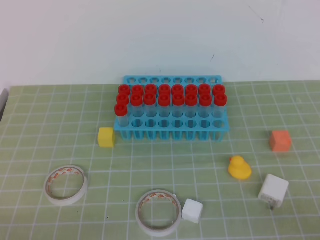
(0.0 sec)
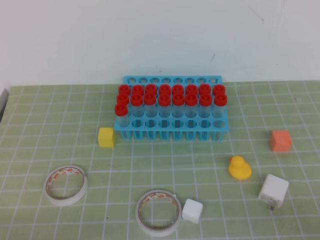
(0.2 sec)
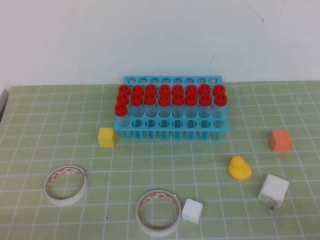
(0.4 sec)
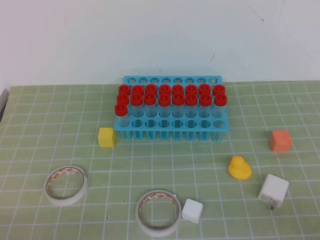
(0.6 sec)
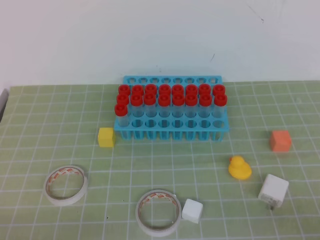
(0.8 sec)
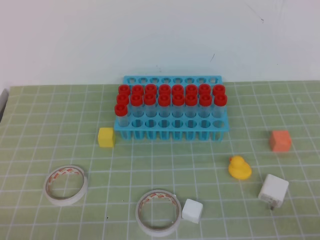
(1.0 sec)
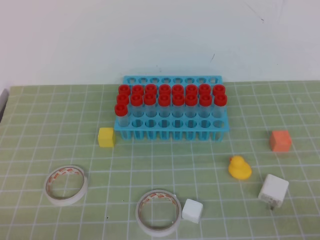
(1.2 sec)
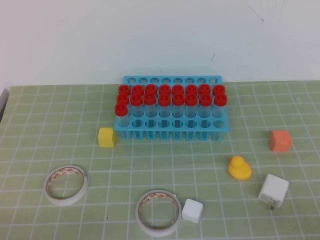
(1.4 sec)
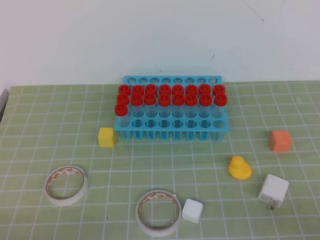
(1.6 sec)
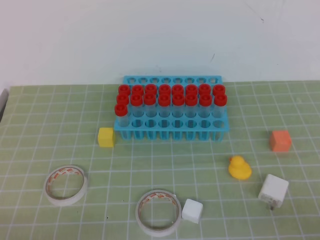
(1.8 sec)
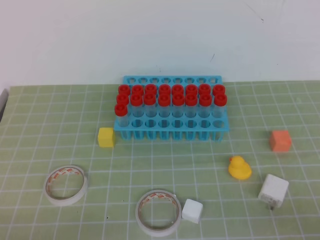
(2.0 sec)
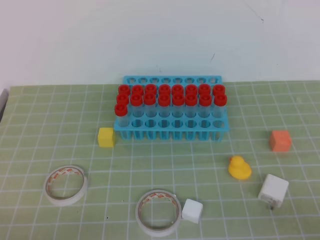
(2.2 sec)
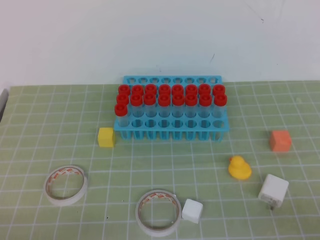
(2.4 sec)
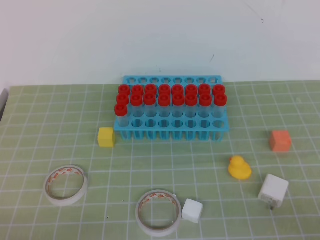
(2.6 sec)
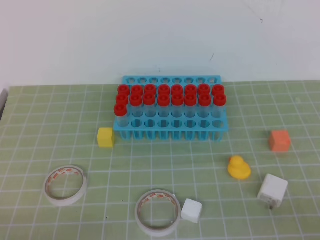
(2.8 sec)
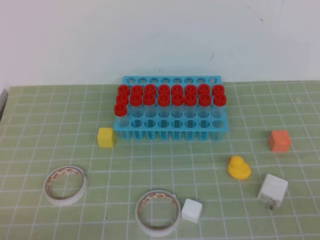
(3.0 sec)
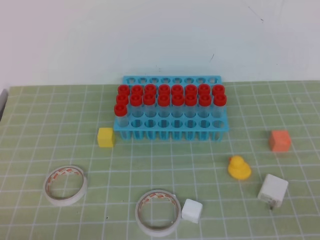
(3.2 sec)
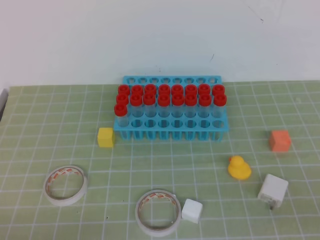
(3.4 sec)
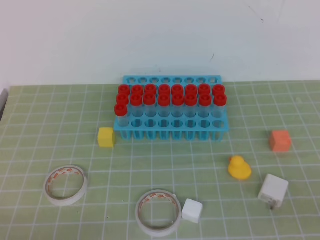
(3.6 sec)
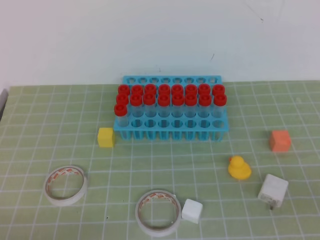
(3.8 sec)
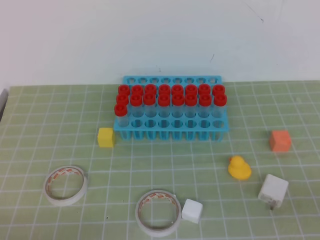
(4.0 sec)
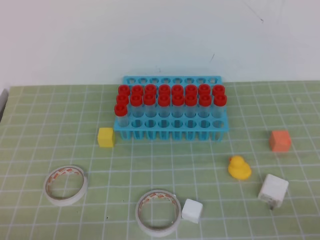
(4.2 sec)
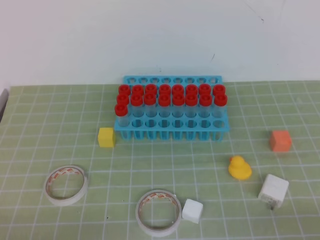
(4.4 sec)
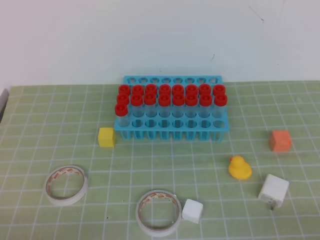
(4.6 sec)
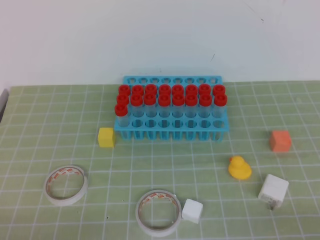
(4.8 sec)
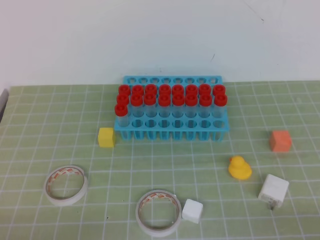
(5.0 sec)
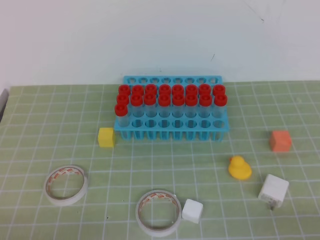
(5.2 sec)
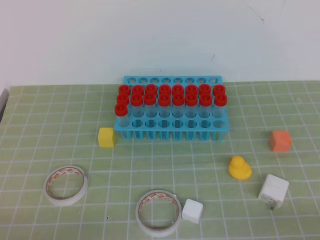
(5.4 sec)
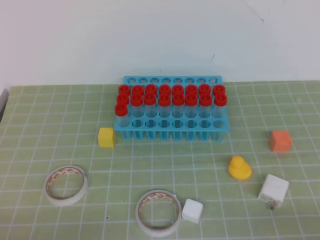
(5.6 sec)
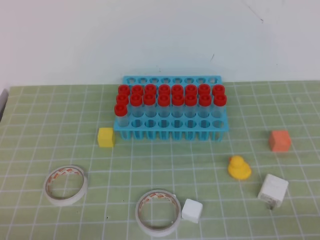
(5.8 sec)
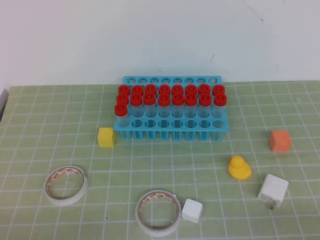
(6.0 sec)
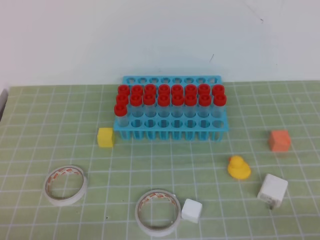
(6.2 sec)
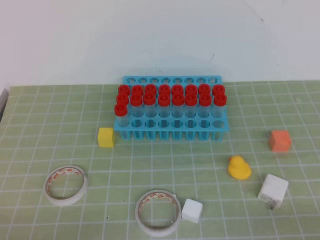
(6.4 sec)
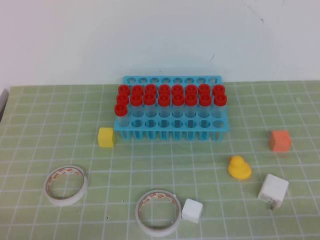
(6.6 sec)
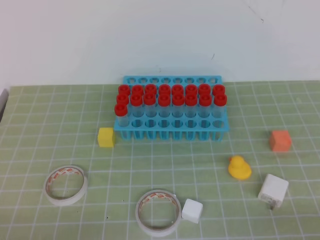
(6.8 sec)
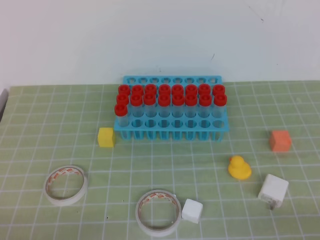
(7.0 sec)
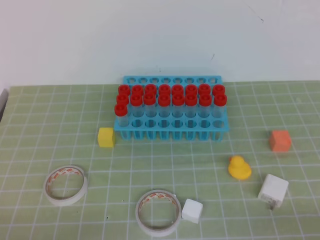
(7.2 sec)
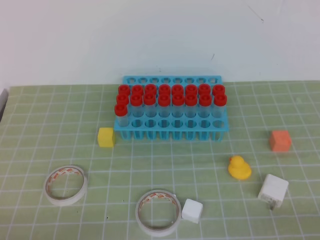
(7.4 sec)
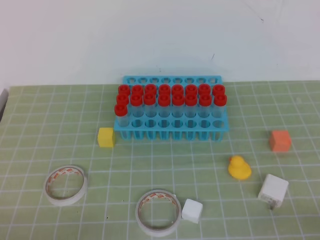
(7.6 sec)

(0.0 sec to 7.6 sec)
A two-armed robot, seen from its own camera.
4.6 sec - 6.0 sec: Both grippers stay about where they are.
6.0 sec - 7.6 sec: Both grippers stay about where they are.
